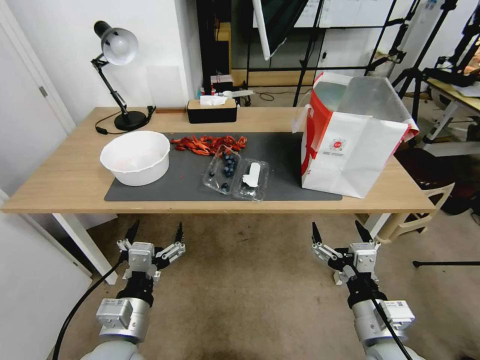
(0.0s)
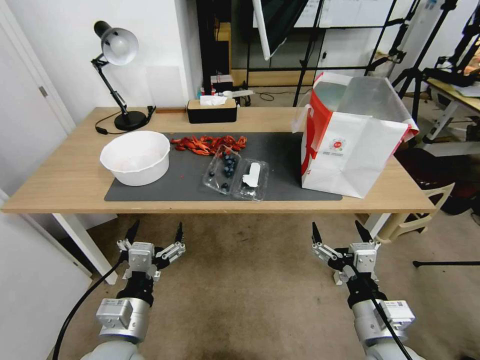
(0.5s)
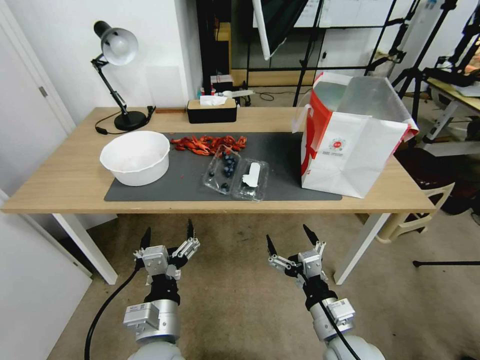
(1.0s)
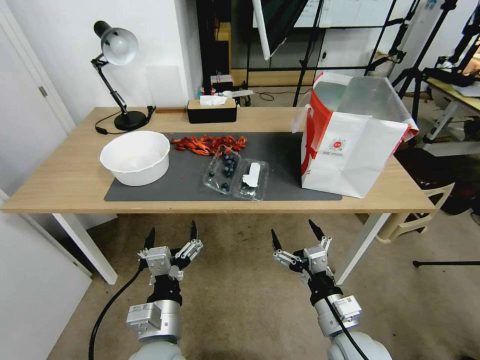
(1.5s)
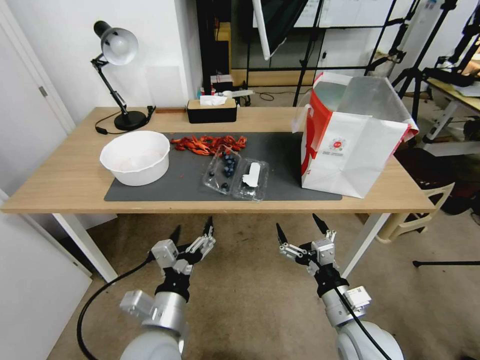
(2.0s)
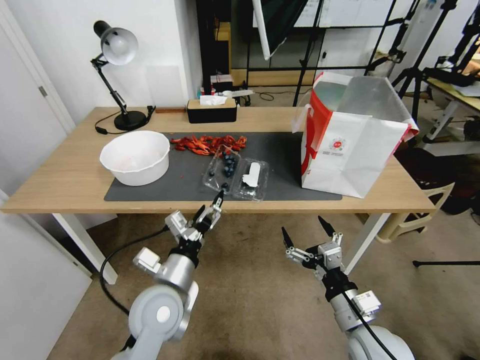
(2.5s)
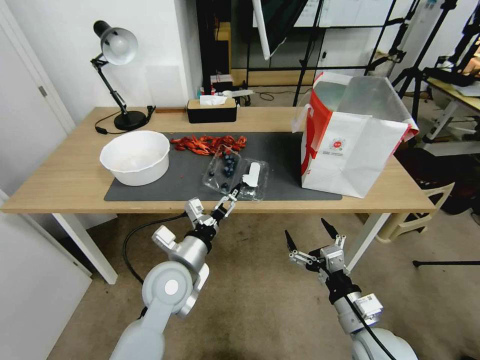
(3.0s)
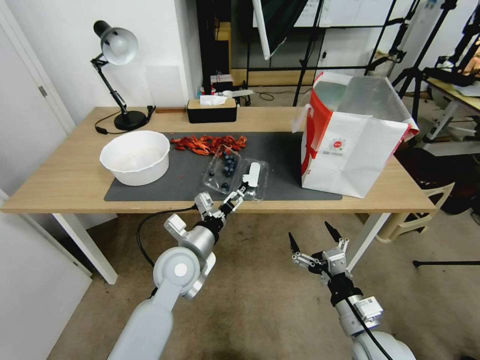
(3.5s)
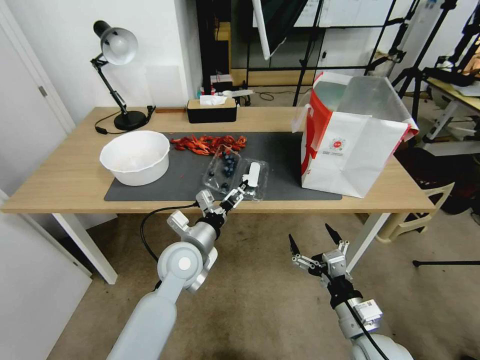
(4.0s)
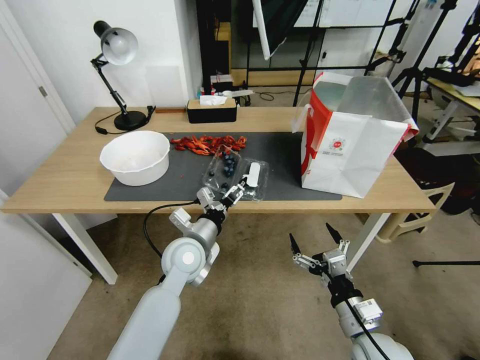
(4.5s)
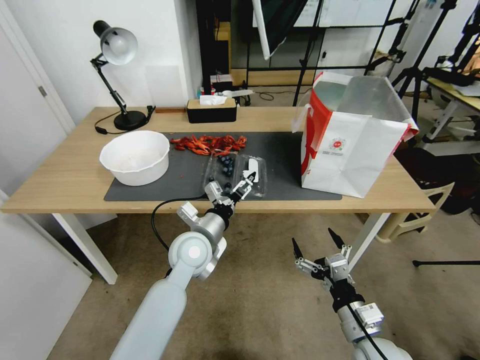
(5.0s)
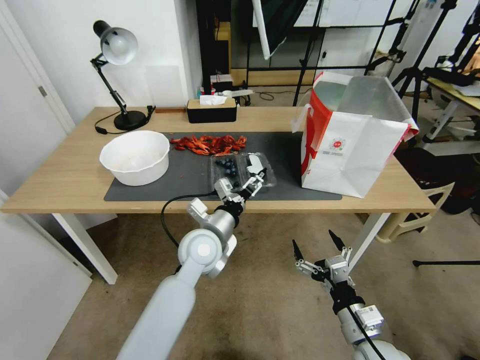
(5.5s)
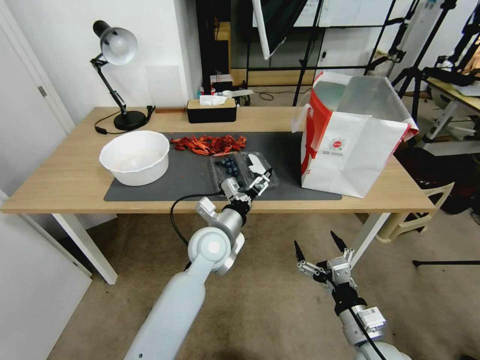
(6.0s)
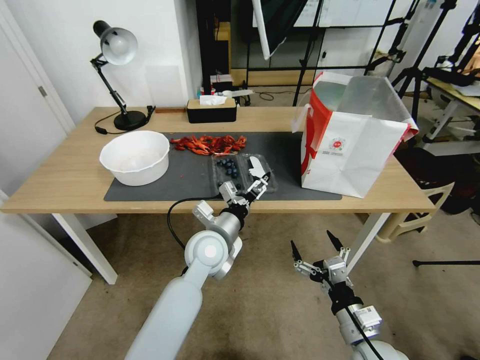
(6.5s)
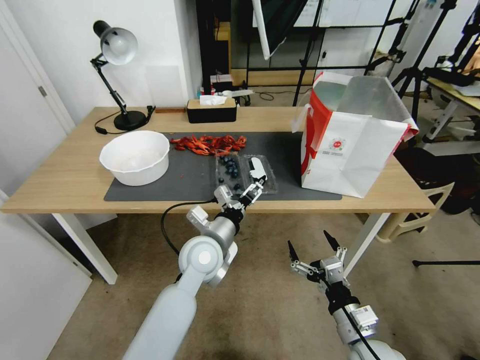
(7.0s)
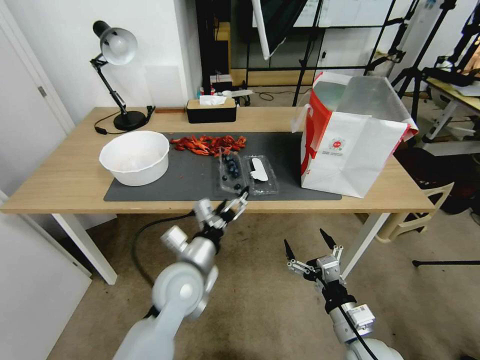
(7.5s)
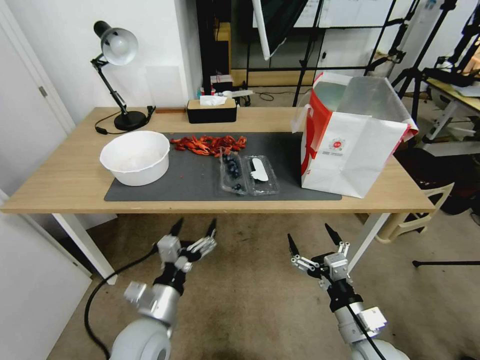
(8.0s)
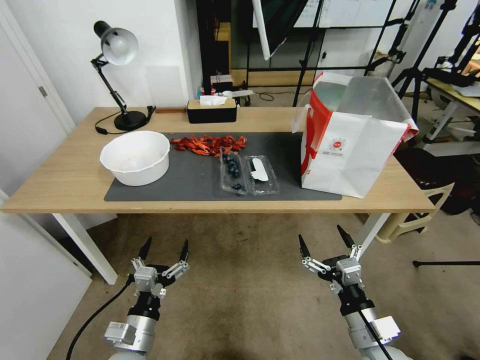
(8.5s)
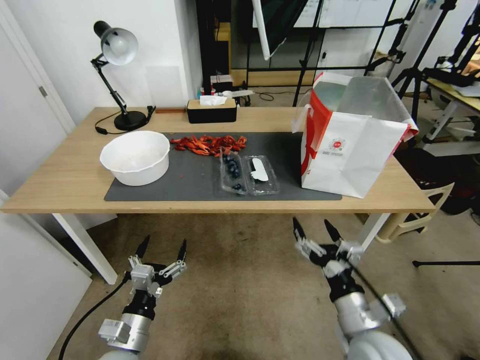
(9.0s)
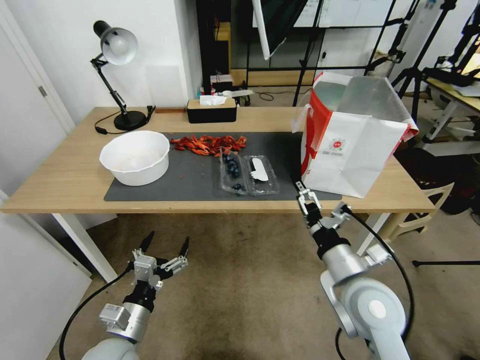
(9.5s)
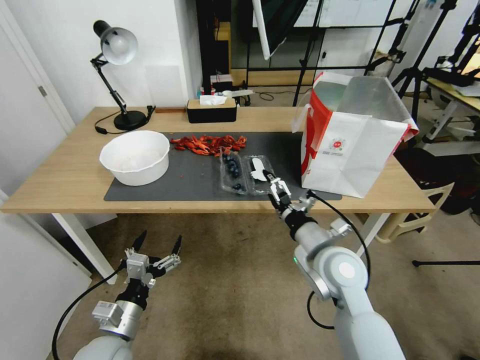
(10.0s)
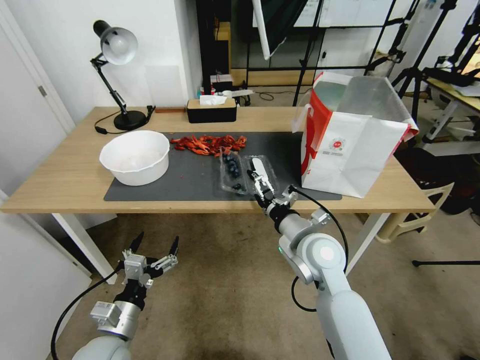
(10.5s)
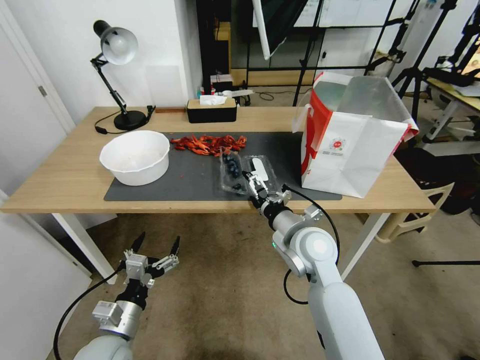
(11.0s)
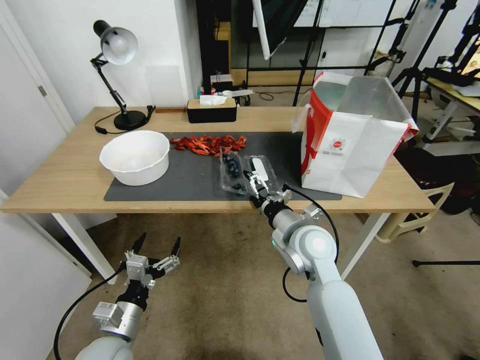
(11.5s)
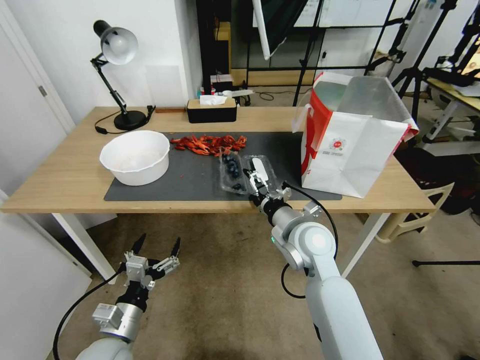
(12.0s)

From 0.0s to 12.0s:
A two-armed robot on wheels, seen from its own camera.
Task of the whole recording: Close the takeout container lid, then place the container into the takeout bag.
From 2.0s to 4.0s: The left gripper shifts some 15 cm forward.
From 4.0s to 6.0s: The left gripper is displaced to the right by approximately 5 cm.
From 6.0s to 8.0s: The left gripper goes some 20 cm backward and to the left.
From 8.0s to 10.0s: The right gripper travels forward, upward and to the left by roughly 20 cm. The left gripper travels to the left by about 10 cm.
From 10.0s to 12.0s: The right gripper shifts roughly 5 cm forward.

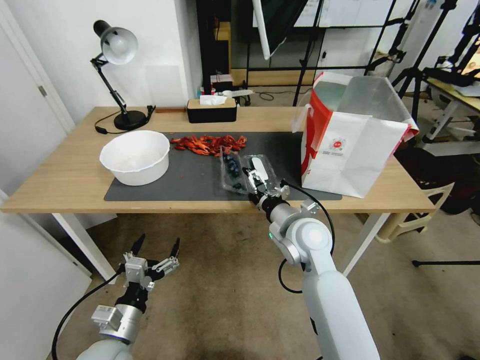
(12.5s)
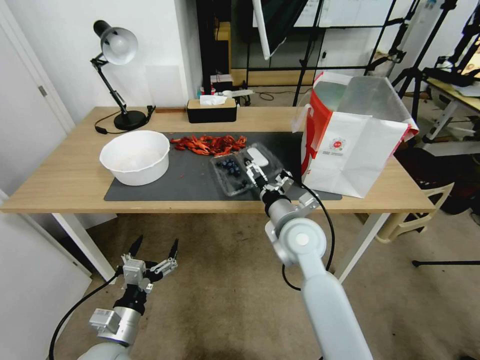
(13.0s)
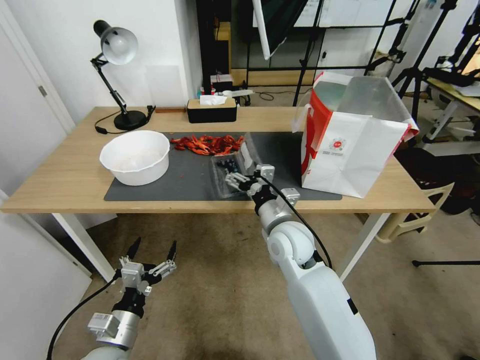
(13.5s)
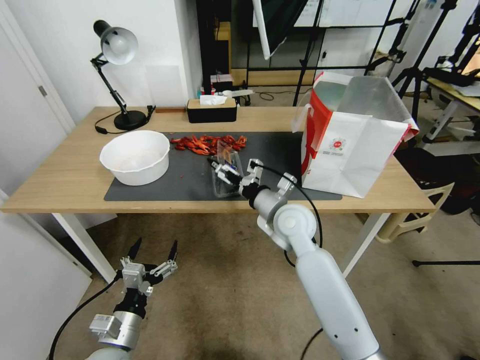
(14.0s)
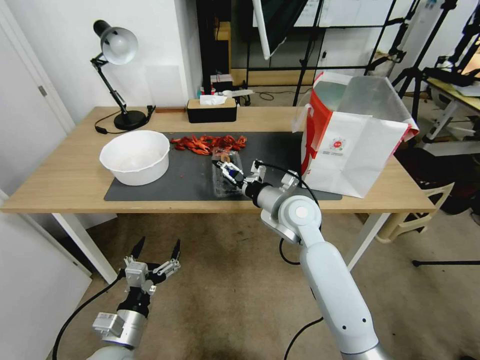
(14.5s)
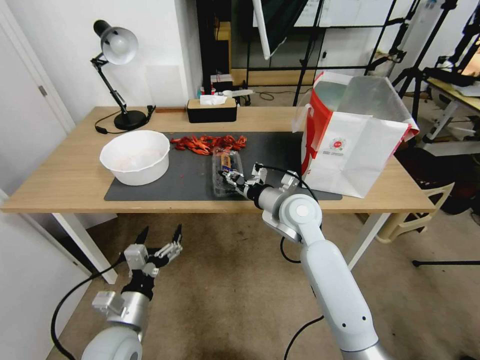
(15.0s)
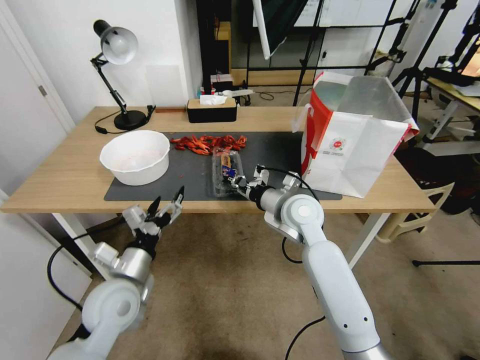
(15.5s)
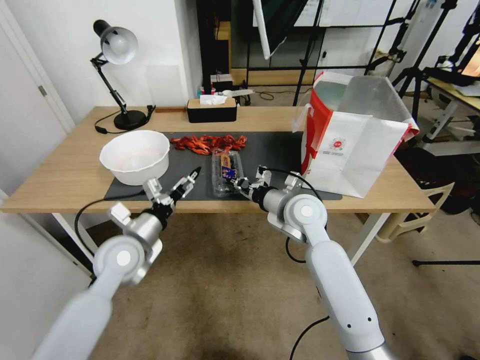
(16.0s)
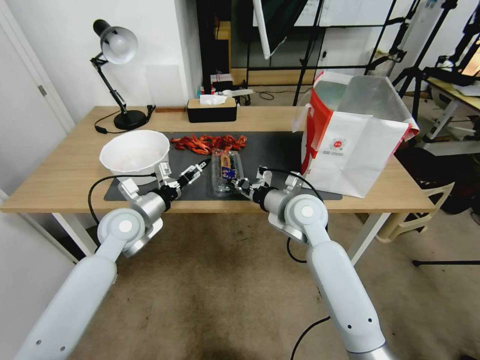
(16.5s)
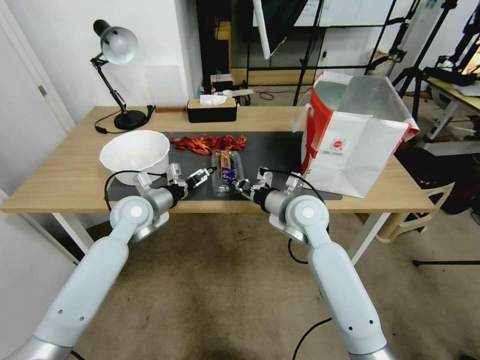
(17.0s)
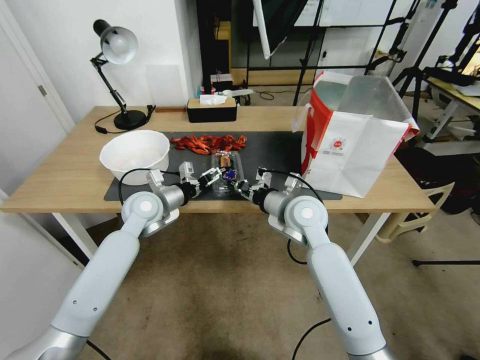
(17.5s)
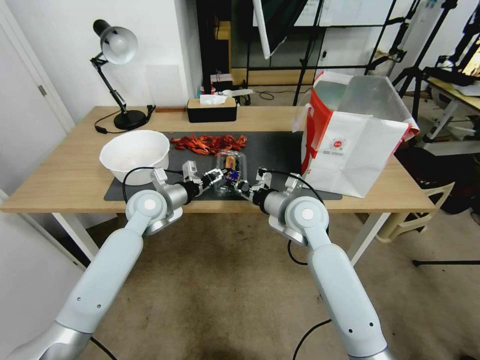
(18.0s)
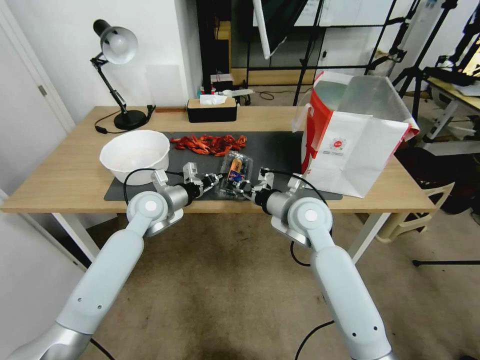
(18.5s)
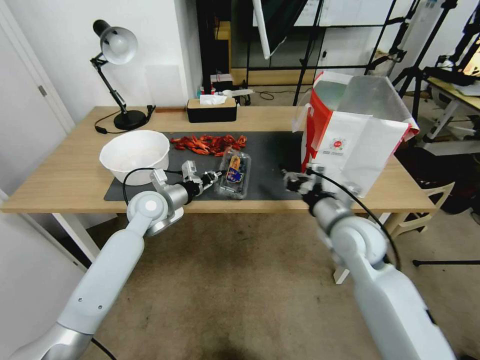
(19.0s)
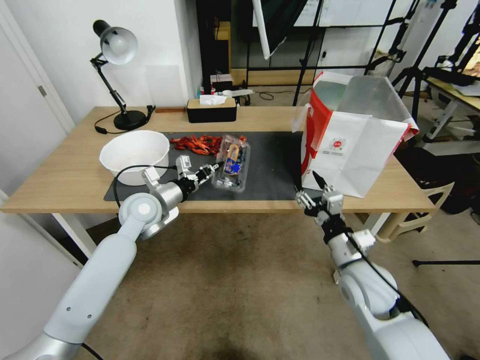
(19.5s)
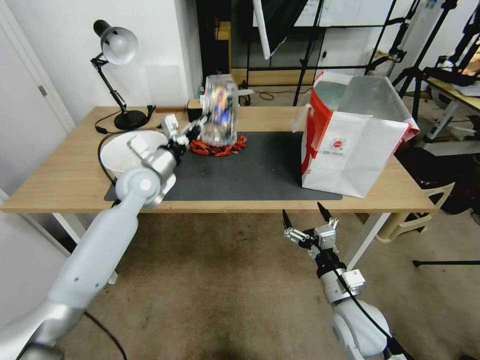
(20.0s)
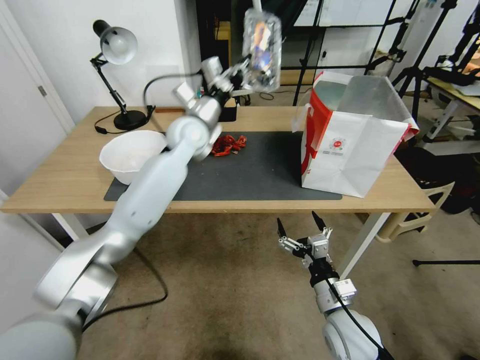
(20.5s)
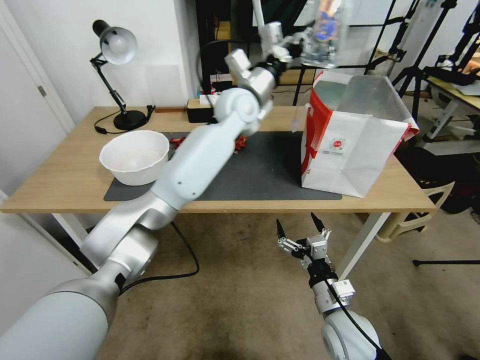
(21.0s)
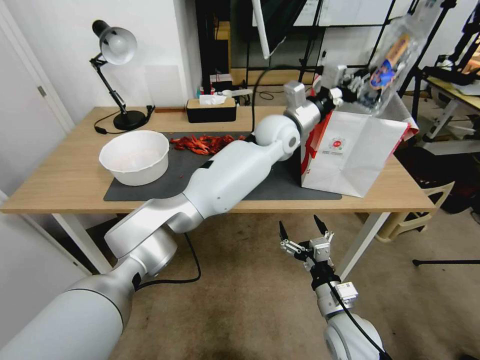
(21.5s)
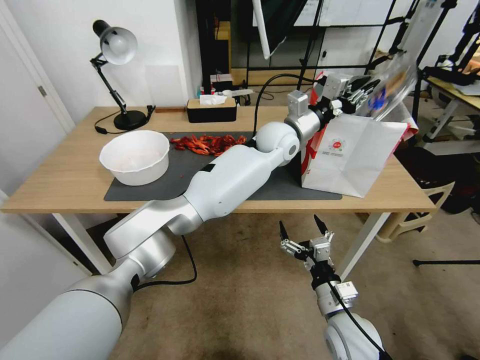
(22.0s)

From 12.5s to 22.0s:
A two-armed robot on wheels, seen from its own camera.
Task of the whole recording: Close the takeout container lid, then place the container into the takeout bag.
From 12.5s to 14.5s: The right gripper travels forward by about 5 cm.
From 14.5s to 16.5s: The left gripper moves forward and upward, roughly 30 cm; the right gripper closes up.
From 16.5s to 18.0s: The left gripper travels forward by roughly 5 cm, and closes its fingers.
From 18.0s to 20.0s: The left gripper closes. Meanwhile the right gripper heads backward, downward and to the right, covering about 25 cm, and opens up.
From 20.0s to 22.0s: The left gripper shifts roughly 35 cm to the right.

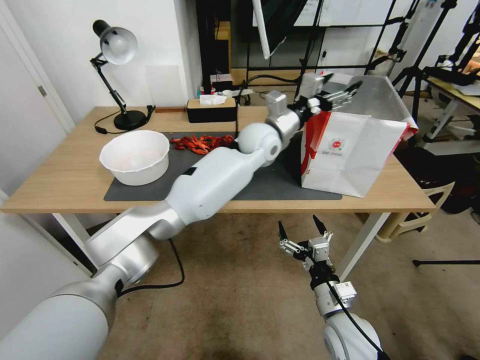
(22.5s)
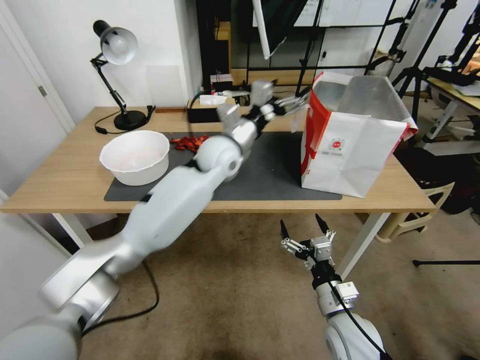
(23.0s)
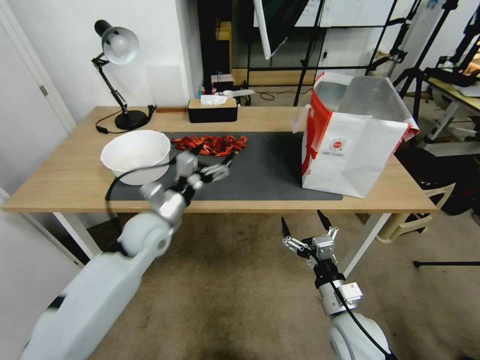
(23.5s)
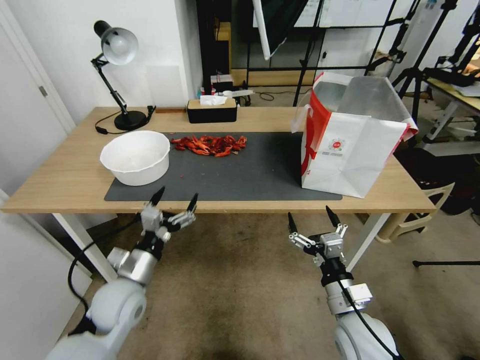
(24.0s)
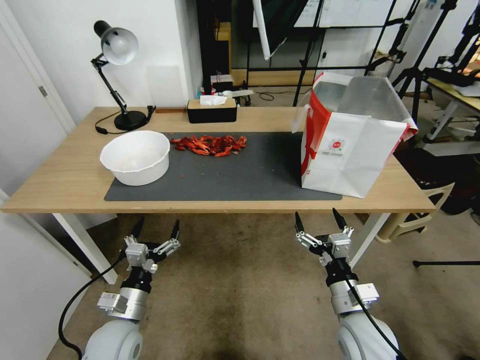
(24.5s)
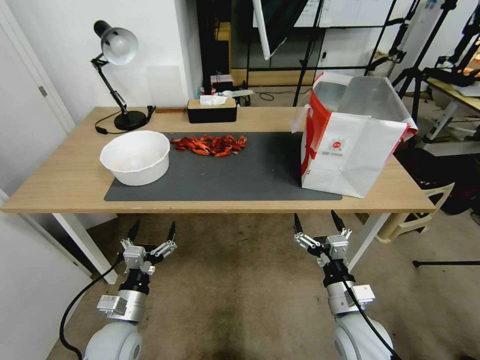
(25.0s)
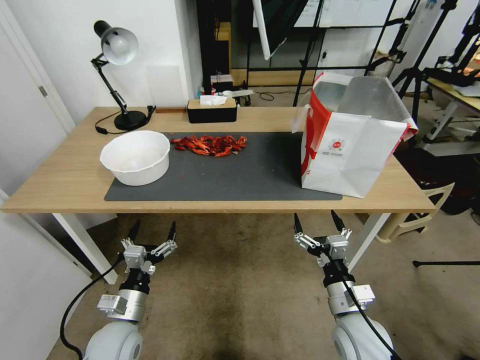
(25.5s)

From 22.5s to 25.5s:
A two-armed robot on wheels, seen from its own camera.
Task of the whole recording: Close the takeout container lid, then place the container into the takeout bag.
From 22.5s to 24.0s: The left gripper goes about 50 cm to the left, backward and downward.
From 24.0s to 25.5s: The left gripper moves downward and backward, some 10 cm.
